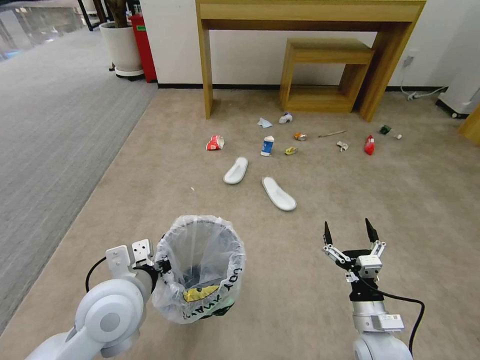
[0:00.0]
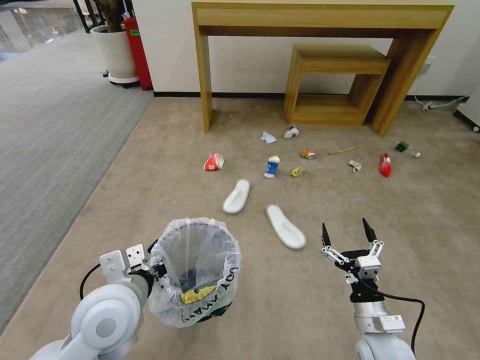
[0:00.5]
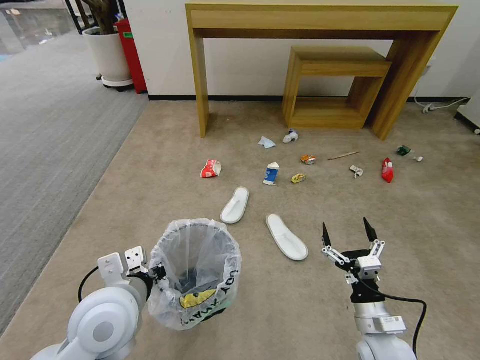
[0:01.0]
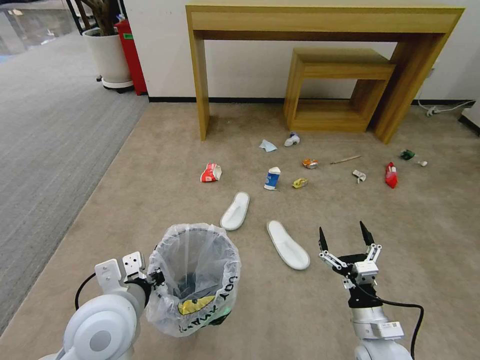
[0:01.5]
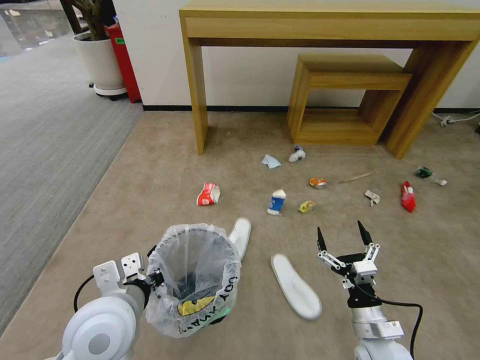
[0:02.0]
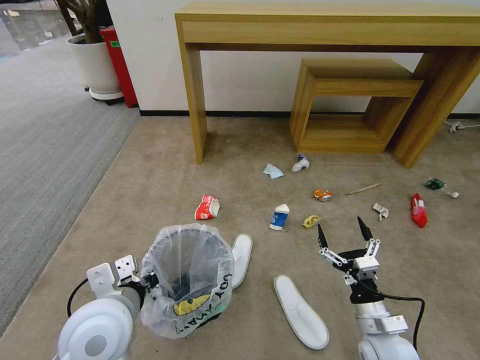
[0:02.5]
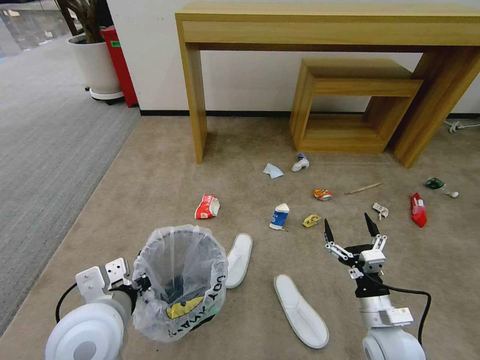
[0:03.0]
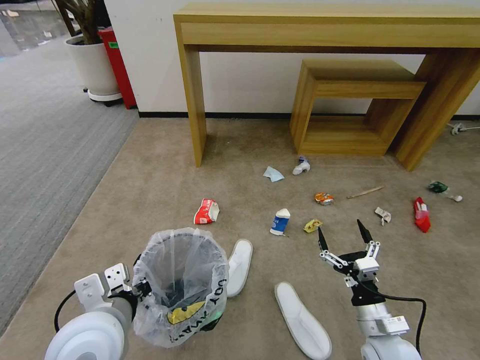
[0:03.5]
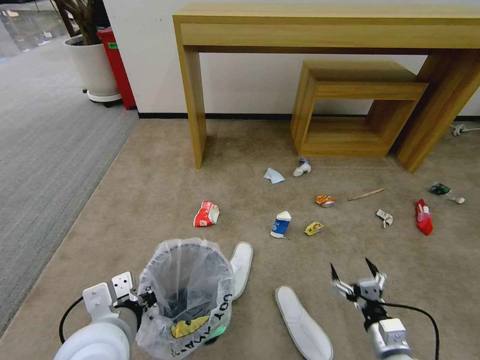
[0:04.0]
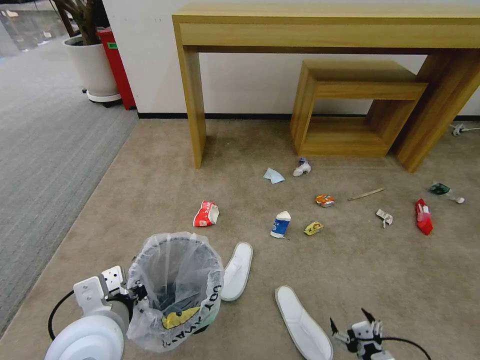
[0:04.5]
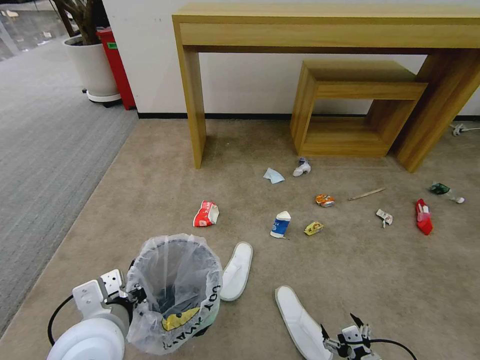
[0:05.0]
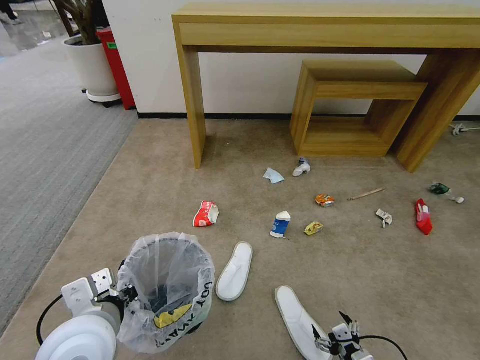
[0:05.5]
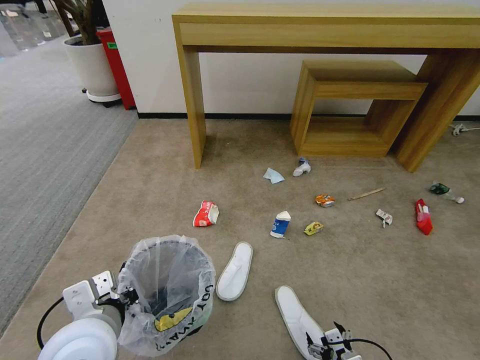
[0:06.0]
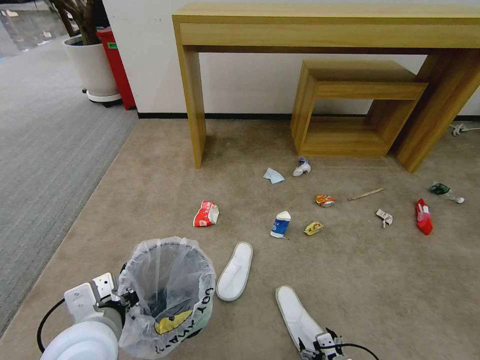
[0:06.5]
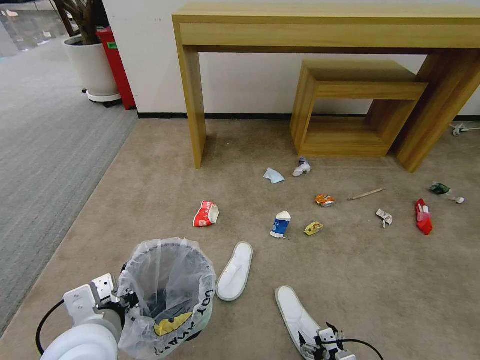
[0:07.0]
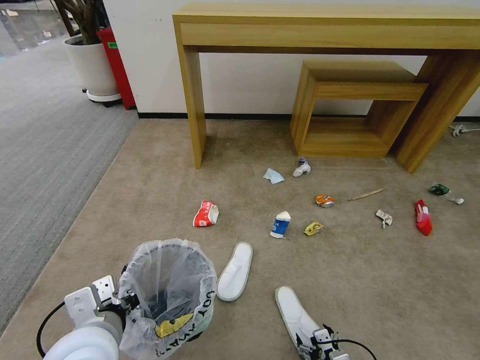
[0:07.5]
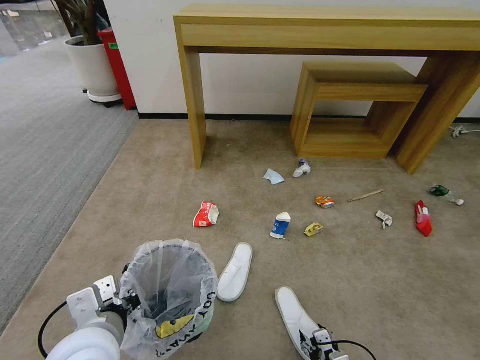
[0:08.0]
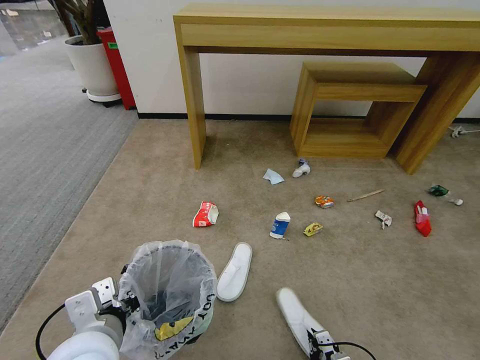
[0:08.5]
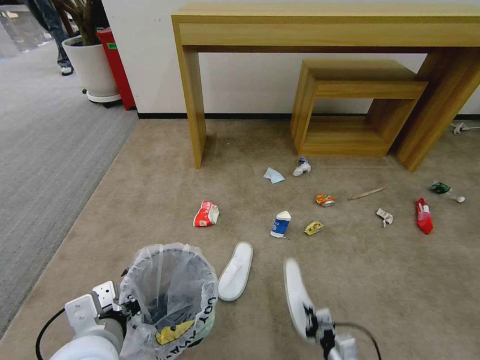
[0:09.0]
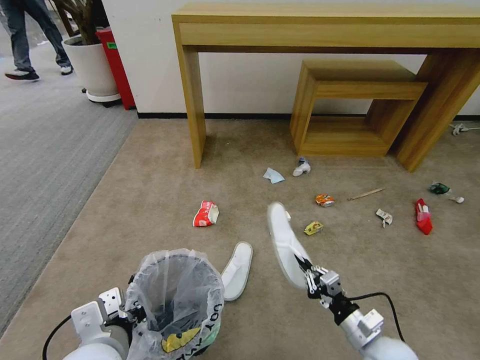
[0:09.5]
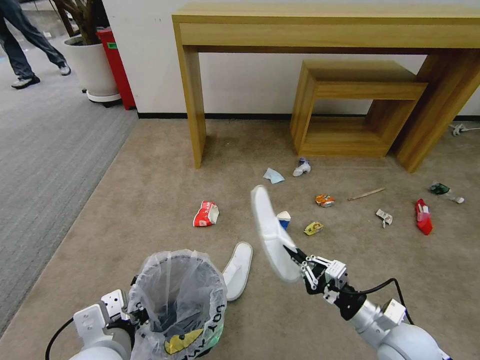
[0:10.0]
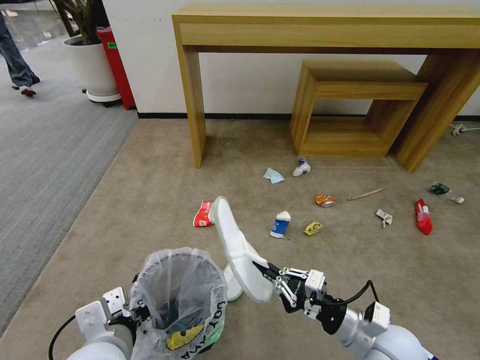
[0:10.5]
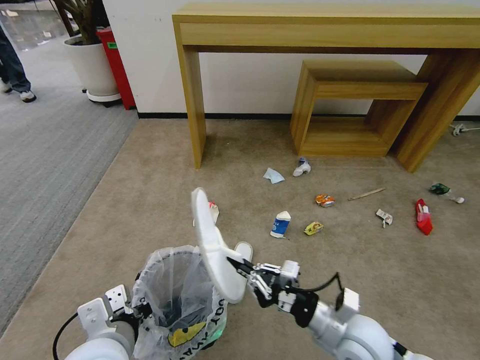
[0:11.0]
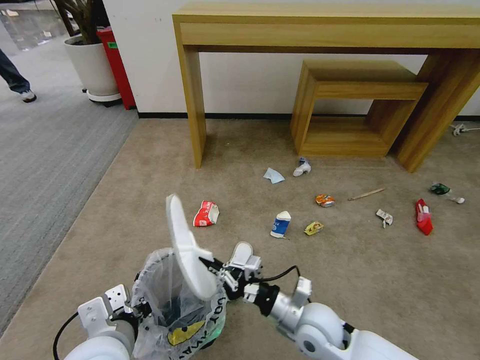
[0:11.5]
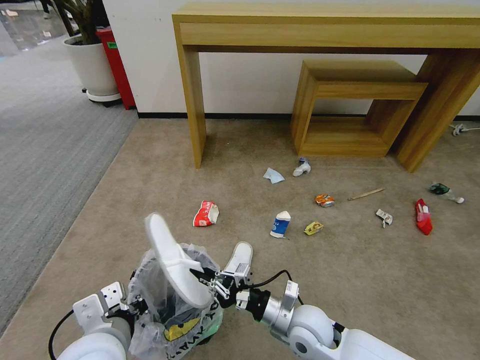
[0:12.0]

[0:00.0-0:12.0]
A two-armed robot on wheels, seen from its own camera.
Task of the whole recording: Pick up the trash bin and place the garbage on the floor into it.
0:02.0 to 0:04.0: The right gripper ends up some 5 cm from where it was.
0:04.0 to 0:06.0: The right gripper moves downward and backward, approximately 10 cm.
0:06.0 to 0:08.0: The grippers move only a little.
0:08.0 to 0:10.0: The right gripper shifts approximately 20 cm upward and forward, and closes up.
0:10.0 to 0:12.0: The right gripper shifts about 15 cm to the left.

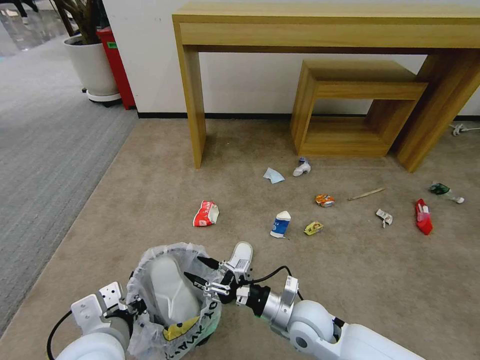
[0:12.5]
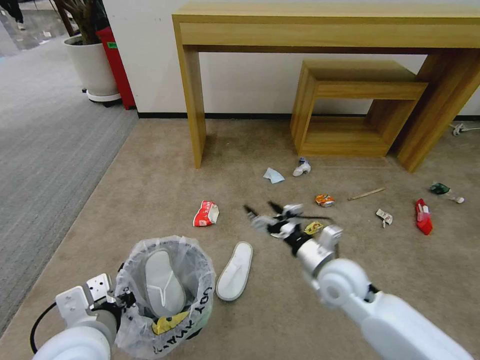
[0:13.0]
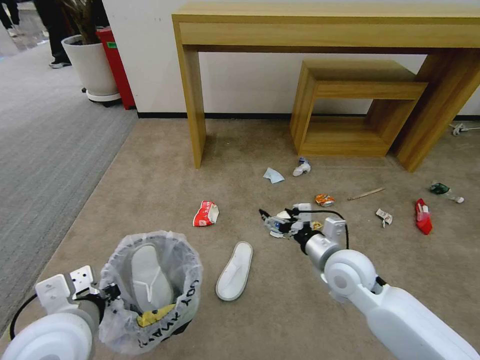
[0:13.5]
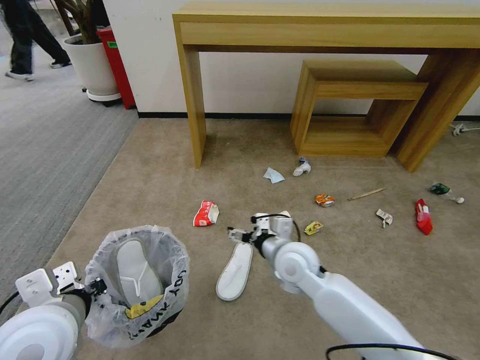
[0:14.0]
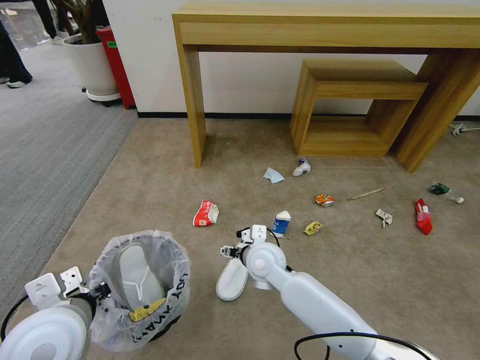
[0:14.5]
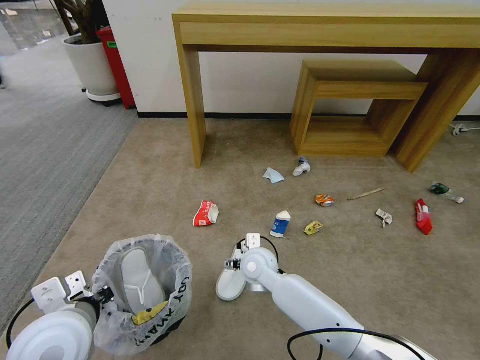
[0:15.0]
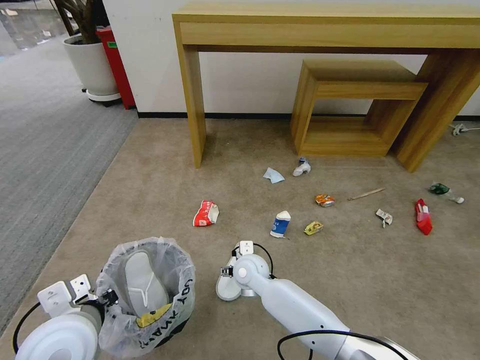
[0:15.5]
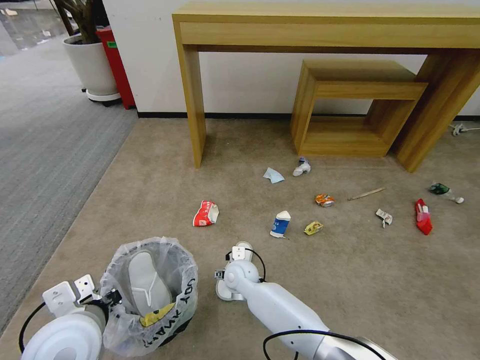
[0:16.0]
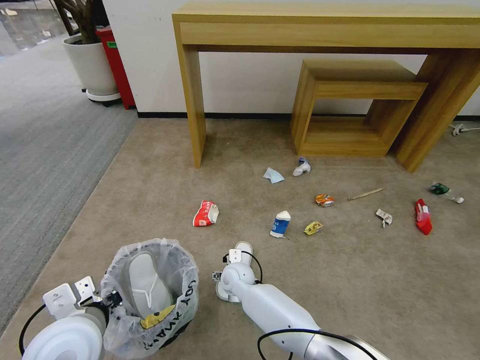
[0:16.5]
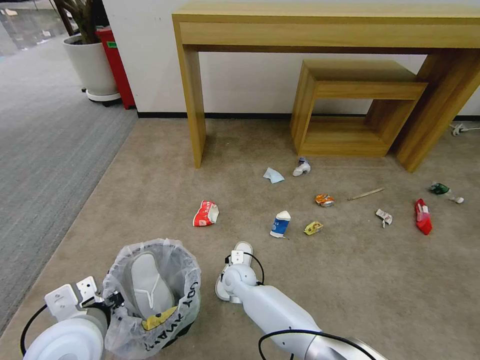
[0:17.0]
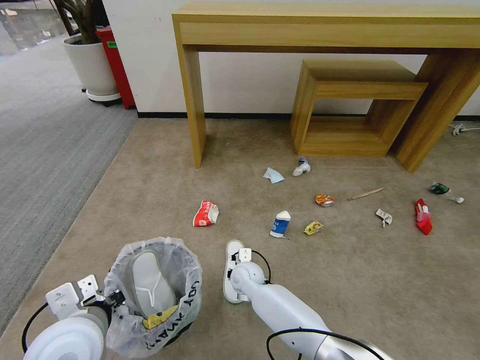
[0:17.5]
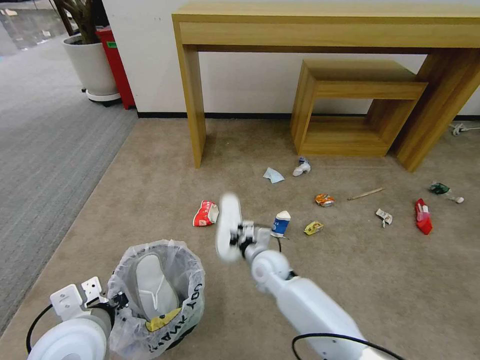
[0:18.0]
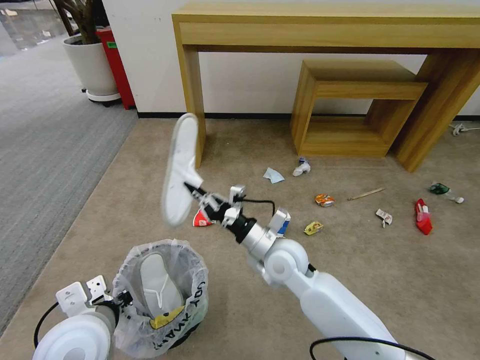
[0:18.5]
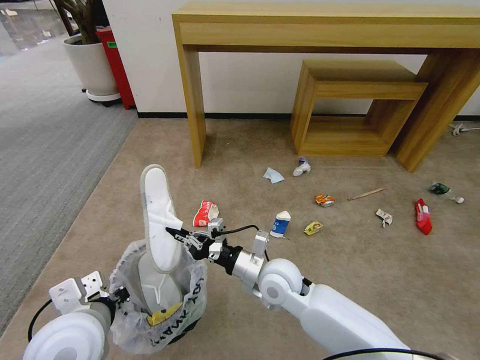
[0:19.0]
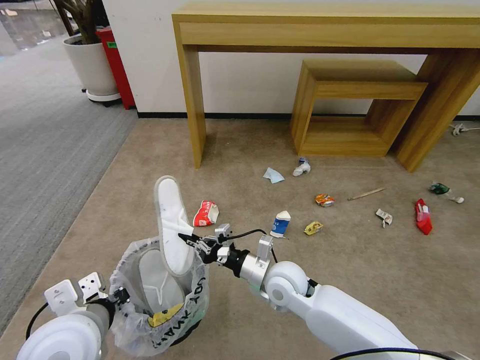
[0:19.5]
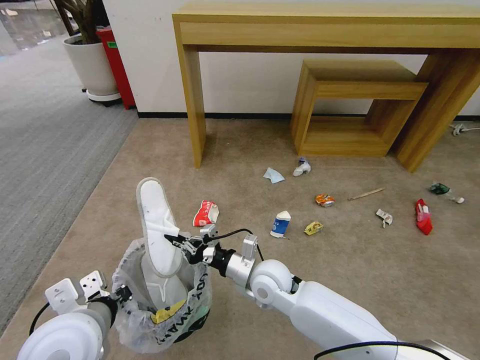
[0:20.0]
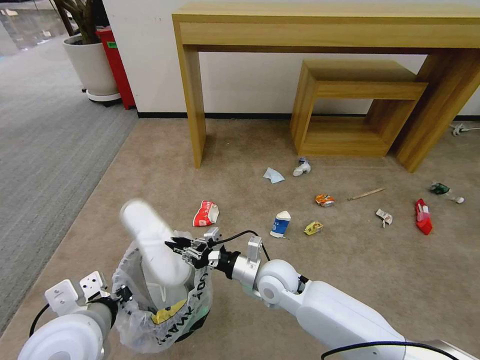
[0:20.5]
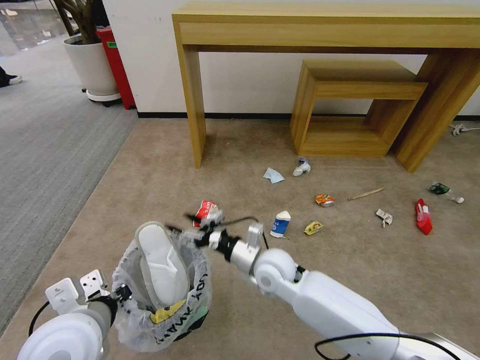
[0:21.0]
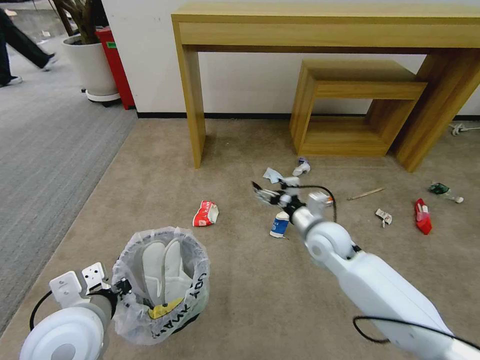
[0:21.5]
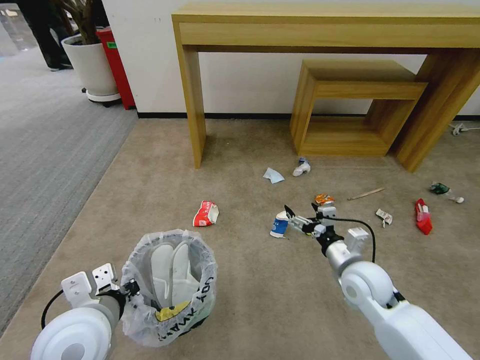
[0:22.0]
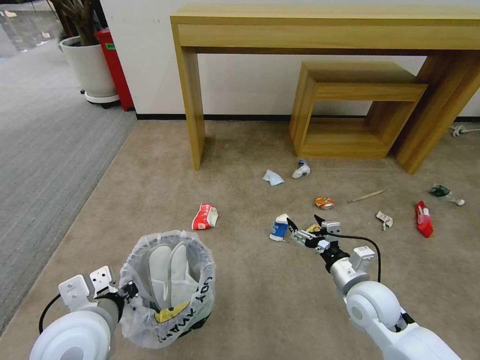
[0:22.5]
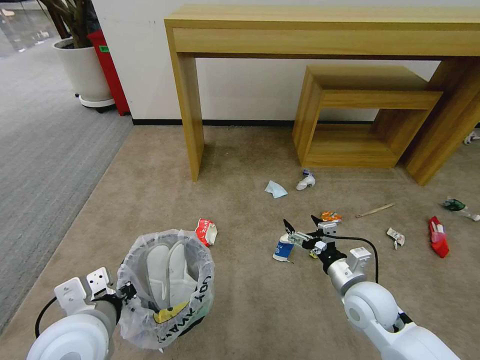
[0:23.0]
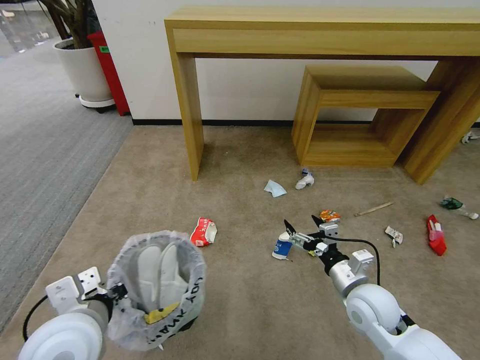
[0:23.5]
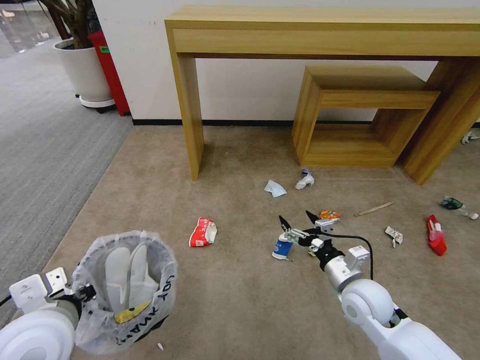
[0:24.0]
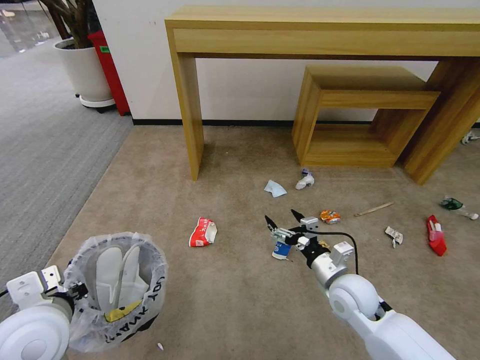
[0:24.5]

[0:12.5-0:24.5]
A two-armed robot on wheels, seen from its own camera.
Task of the whole recording: Pick up the trash bin and place the garbage on the floor into it.
0:12.5 to 0:14.5: The left gripper goes approximately 5 cm to the left, while the right gripper travels forward and to the left by approximately 15 cm, and opens its fingers.
0:14.5 to 0:16.5: The right gripper goes some 15 cm downward and to the left.
0:16.5 to 0:18.5: The right gripper travels upward and to the right by roughly 20 cm, and closes its fingers.
0:18.5 to 0:20.5: The right gripper heads downward, covering approximately 5 cm.
0:20.5 to 0:22.5: The right gripper goes some 20 cm to the right, and opens up.
0:22.5 to 0:24.5: The left gripper moves to the left, approximately 5 cm.

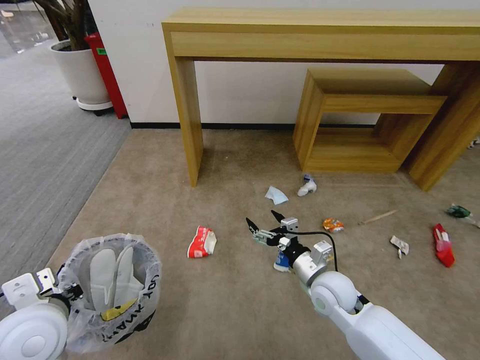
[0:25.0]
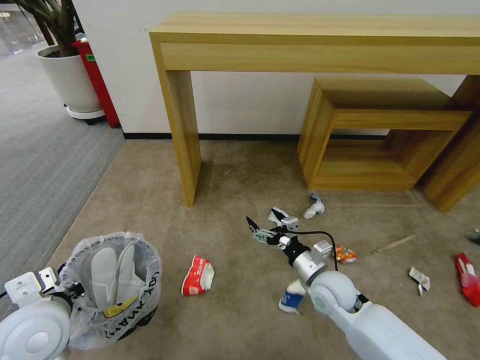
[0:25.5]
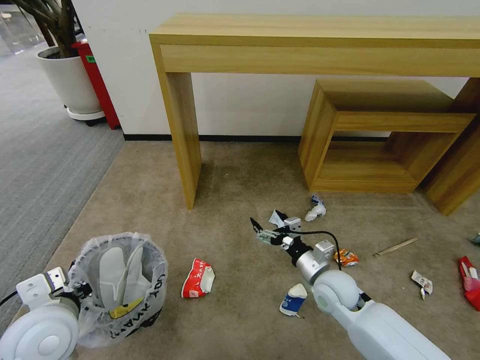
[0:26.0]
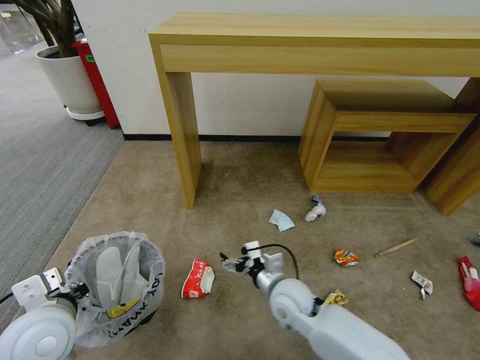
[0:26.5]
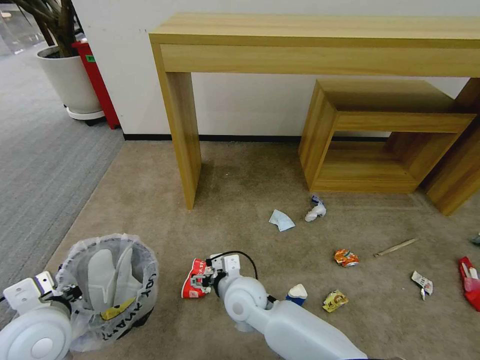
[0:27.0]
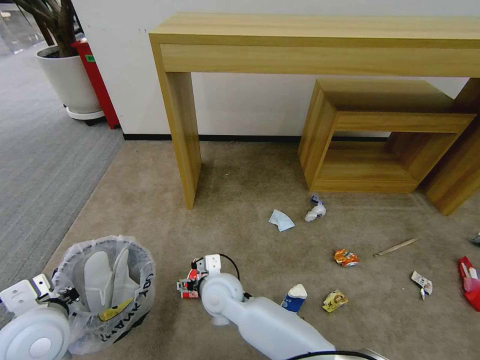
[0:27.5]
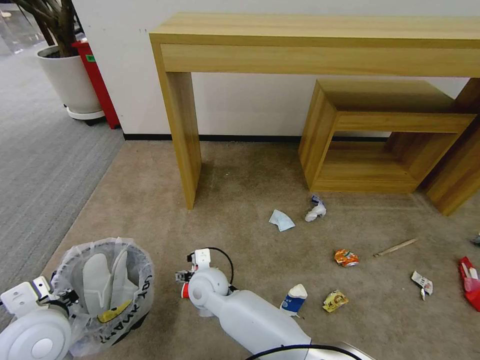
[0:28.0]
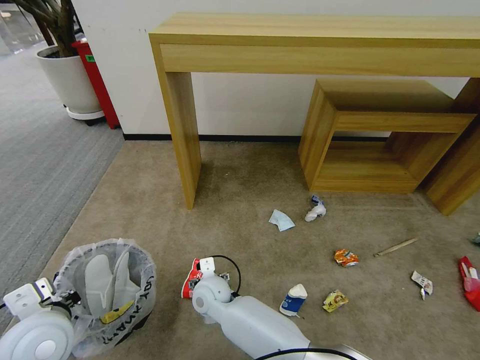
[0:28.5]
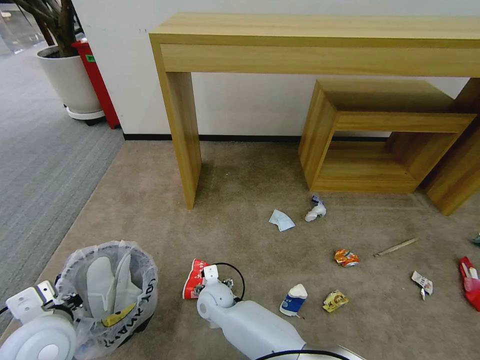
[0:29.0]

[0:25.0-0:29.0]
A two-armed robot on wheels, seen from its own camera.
Task of the whole recording: Pick up the trash bin and place the garbage on the floor into it.
0:25.0 to 0:27.0: The right gripper moves to the left, approximately 20 cm.
0:27.0 to 0:29.0: The right gripper is displaced downward and to the left by roughly 15 cm.
